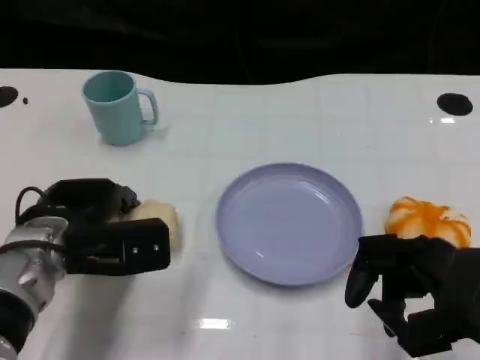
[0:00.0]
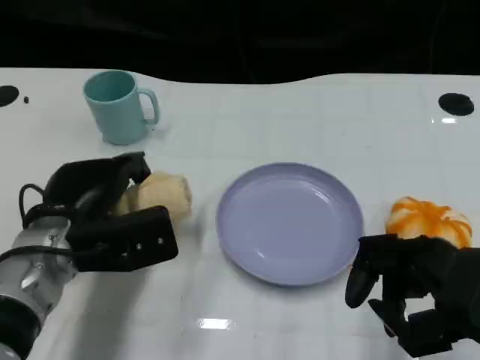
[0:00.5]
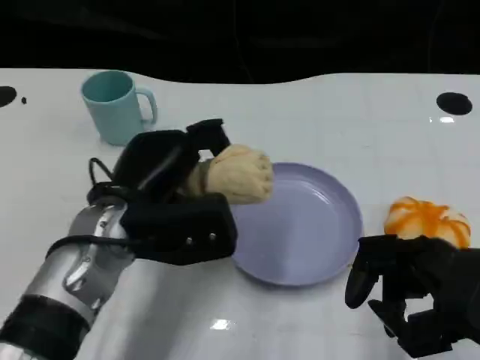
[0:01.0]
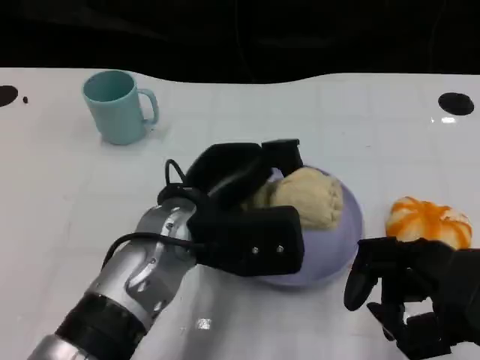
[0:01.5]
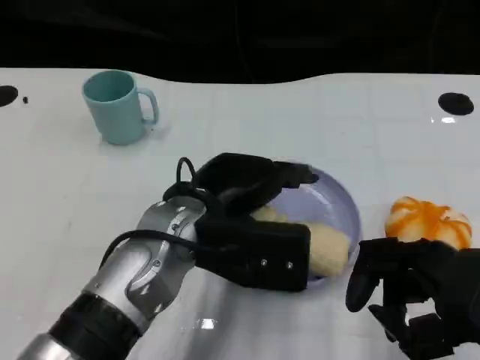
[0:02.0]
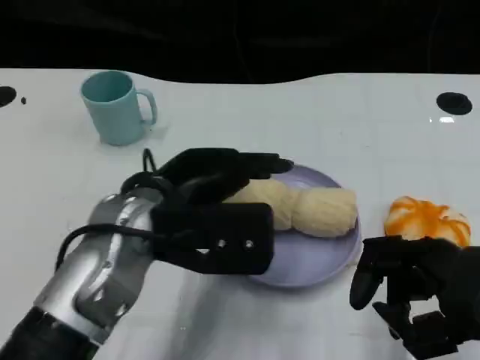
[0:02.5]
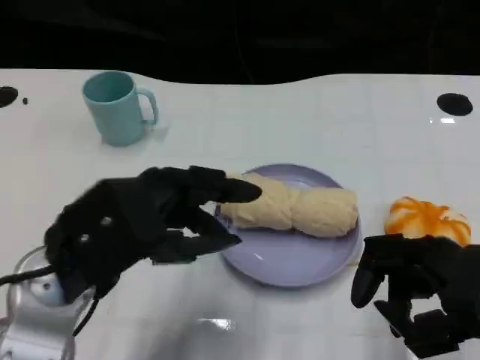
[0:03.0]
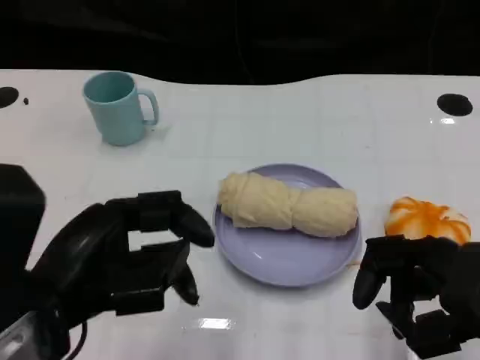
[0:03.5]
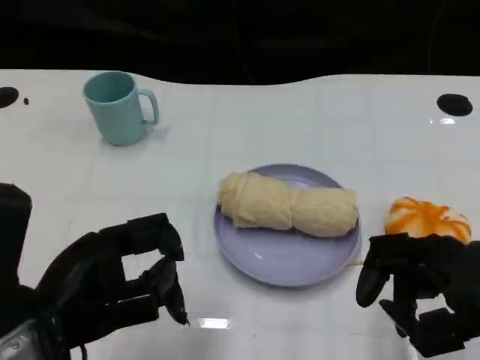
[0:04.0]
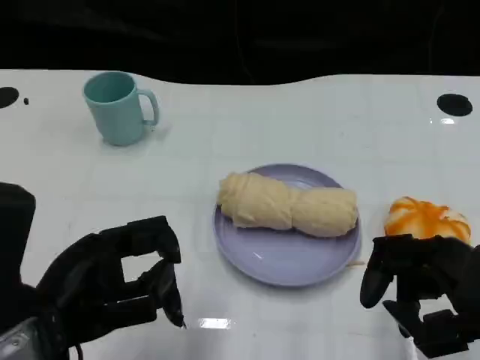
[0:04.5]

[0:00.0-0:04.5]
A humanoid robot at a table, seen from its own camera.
Task of the whole recording: Grasp the towel on the left side of the plate with the left hand and place it into the plate.
0:00.0 to 0:02.0: The left hand is displaced to the right and upward by roughly 15 cm.
0:02.0 to 0:04.5: The left hand is displaced to the left and backward by some 15 cm.
